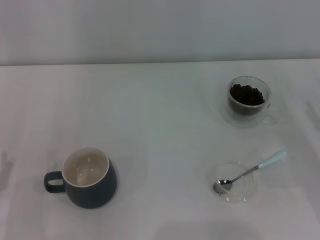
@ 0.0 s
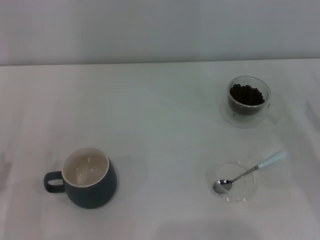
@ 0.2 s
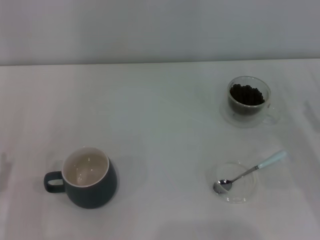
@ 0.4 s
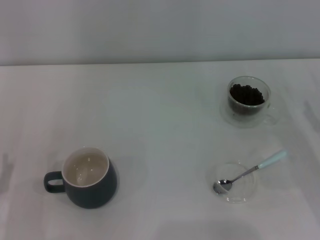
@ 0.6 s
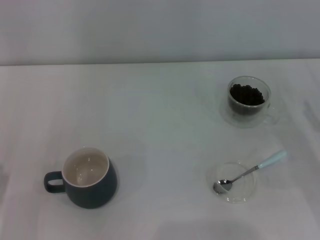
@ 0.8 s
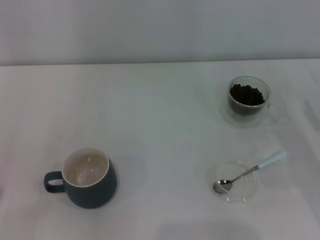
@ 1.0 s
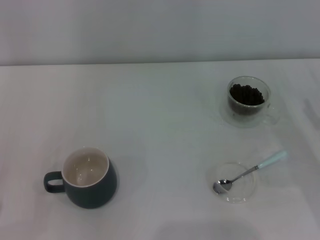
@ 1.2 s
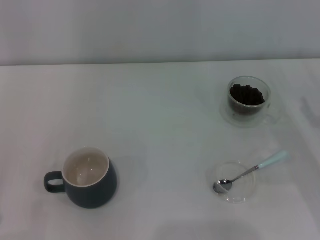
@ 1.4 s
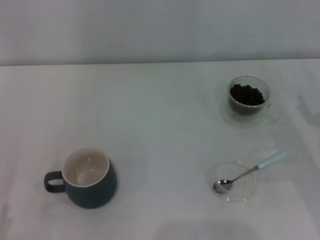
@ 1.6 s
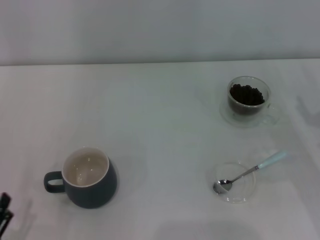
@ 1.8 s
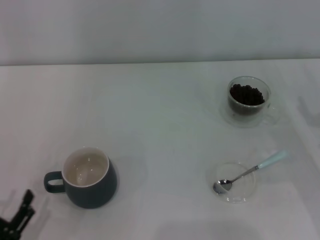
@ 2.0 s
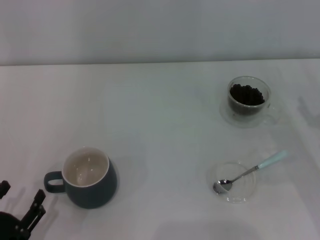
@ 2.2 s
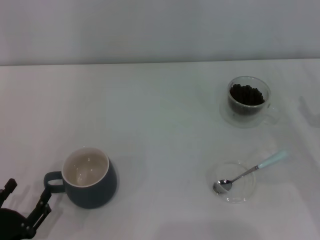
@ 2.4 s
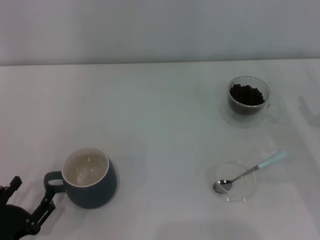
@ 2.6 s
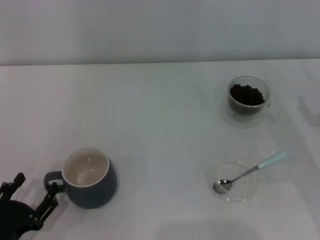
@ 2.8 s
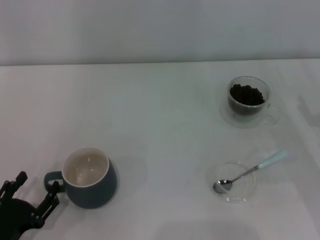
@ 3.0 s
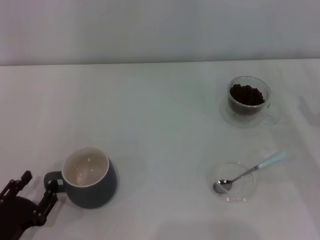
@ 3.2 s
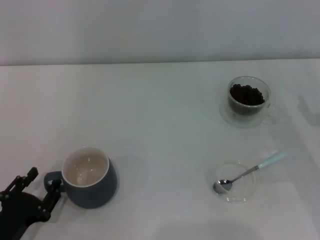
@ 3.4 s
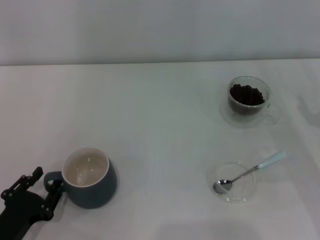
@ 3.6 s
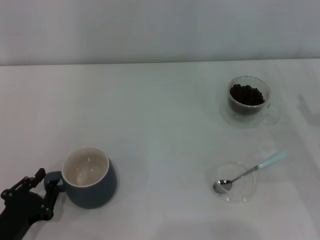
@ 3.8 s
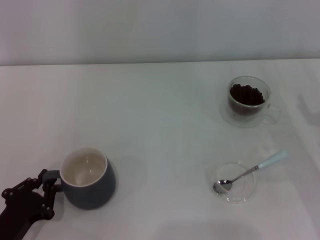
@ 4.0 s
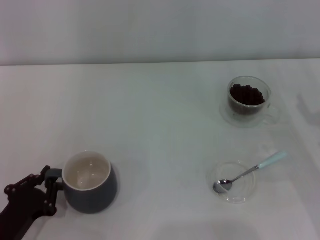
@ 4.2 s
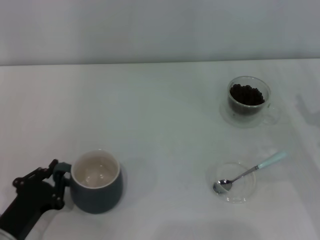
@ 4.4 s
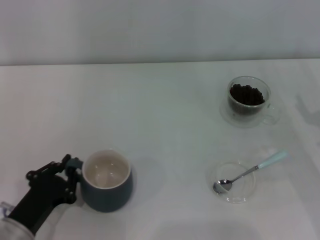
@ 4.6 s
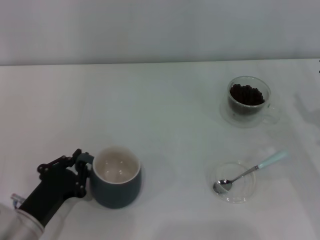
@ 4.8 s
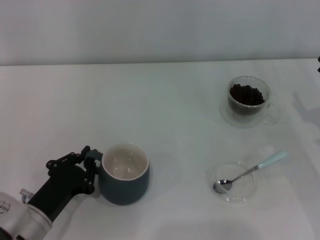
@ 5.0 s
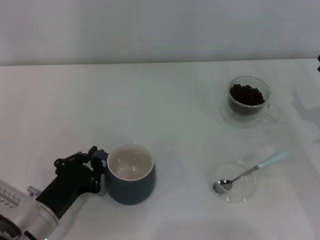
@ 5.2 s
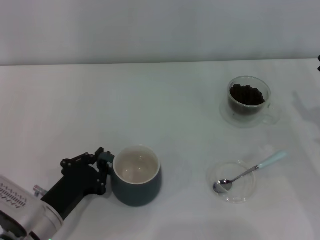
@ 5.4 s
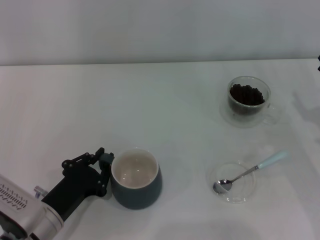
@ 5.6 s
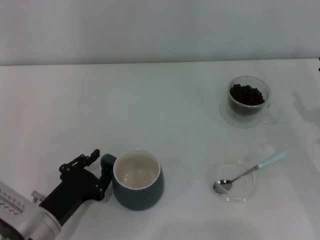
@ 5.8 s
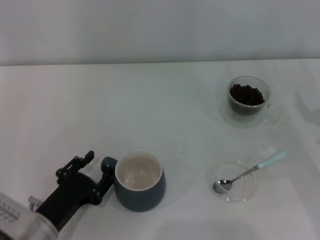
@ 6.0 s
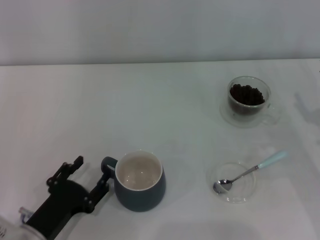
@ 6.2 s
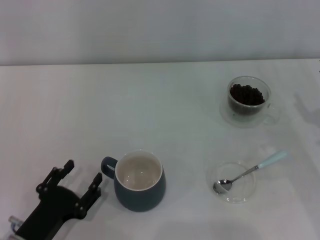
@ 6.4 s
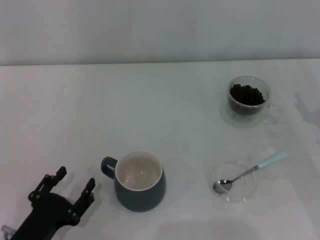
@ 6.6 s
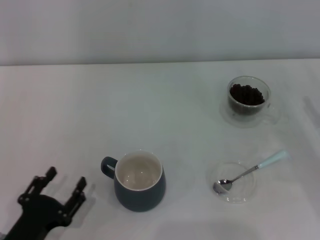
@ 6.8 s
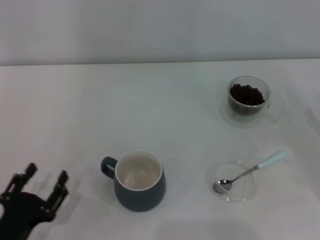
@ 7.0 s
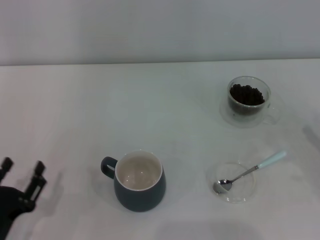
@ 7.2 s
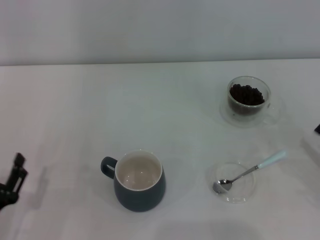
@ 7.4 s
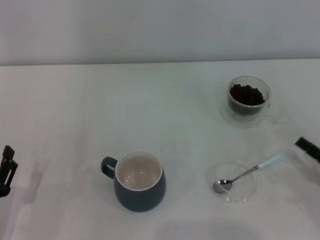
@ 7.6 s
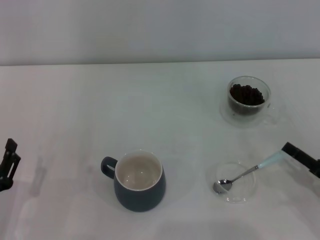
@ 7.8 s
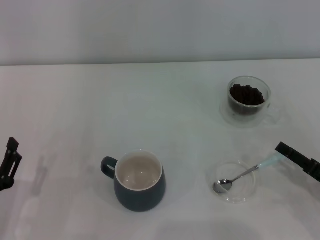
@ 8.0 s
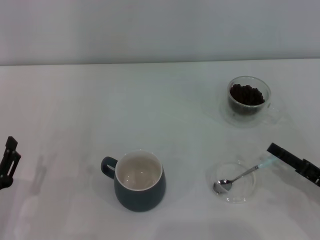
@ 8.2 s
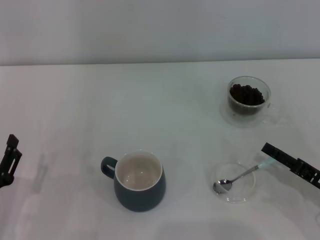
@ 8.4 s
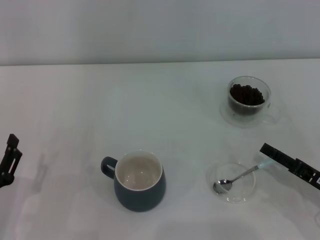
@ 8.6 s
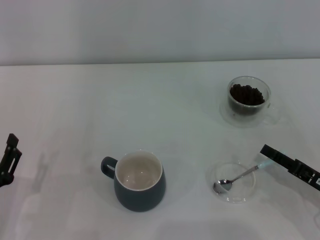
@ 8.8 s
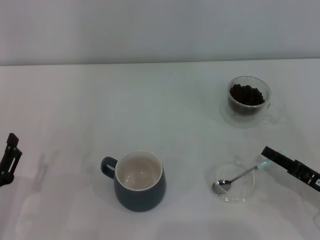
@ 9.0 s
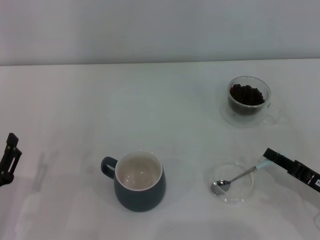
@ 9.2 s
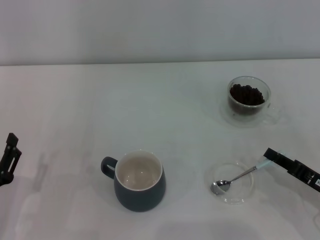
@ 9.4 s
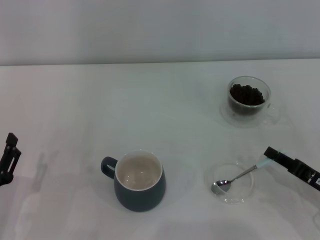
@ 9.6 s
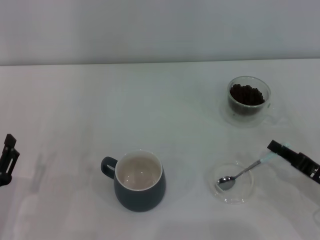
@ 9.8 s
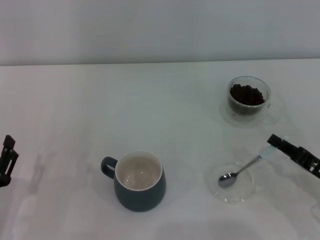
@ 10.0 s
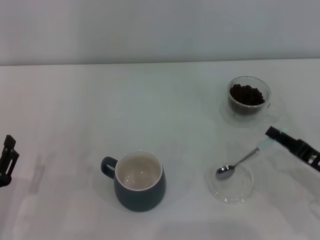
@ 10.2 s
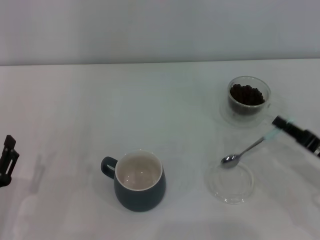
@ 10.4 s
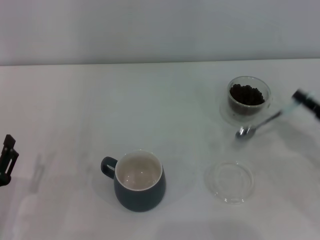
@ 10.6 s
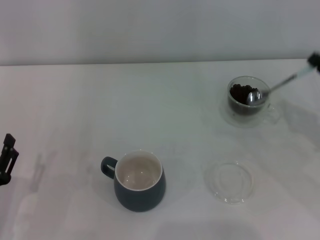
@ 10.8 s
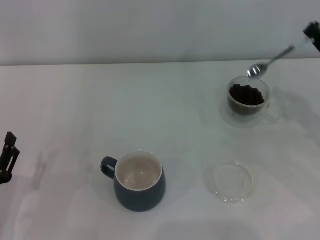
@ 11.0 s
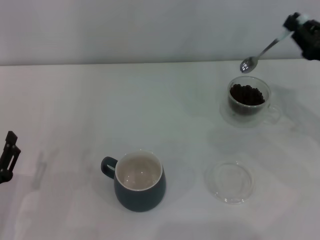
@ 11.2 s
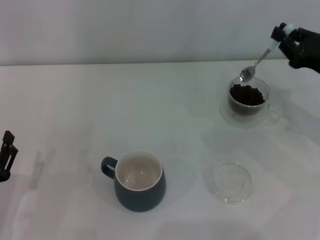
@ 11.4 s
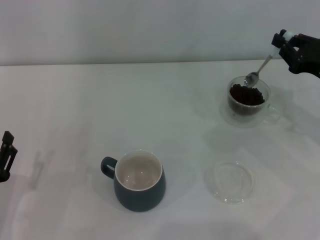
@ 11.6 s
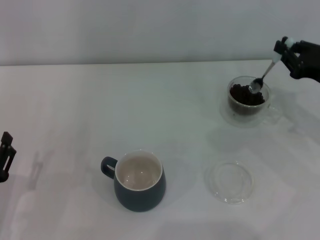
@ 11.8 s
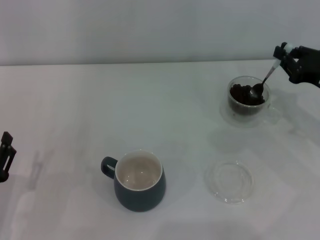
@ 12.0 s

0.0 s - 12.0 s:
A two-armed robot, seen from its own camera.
Task of the whole recording: Use a blue spoon to take out the coffee beans from the glass and pour them into the gray cup.
Step, 0.0 s - 6.4 s: Move the cup to the center of view with the left gripper.
Step, 6.6 s - 10.4 s: Pick up the spoon with the right gripper.
1.6 s - 3.0 s: The left gripper moves forward, roughly 5 cm.
3.0 s - 4.4 s: The left gripper closes.
4.4 s - 6.0 s: The left gripper shifts by approximately 5 cm, and opens.
6.0 s - 7.6 s: The right gripper moves backward, about 10 cm. The left gripper heads to the left, covering roughly 5 cm, and opens.
7.6 s - 9.0 s: The grippers make only small movements.
9.0 s - 10.4 s: The right gripper closes up.
10.4 s - 12.0 s: The right gripper moves forward and upward, some 10 cm.

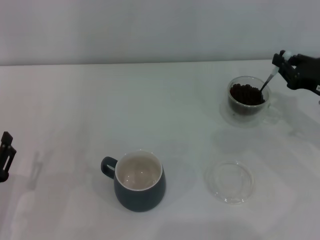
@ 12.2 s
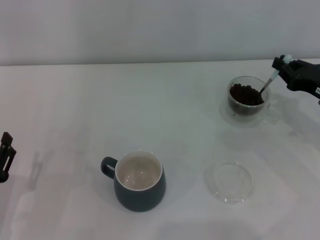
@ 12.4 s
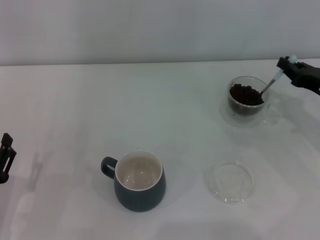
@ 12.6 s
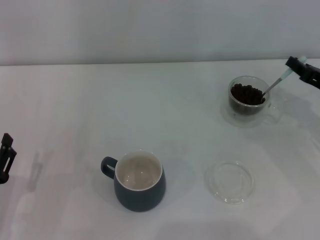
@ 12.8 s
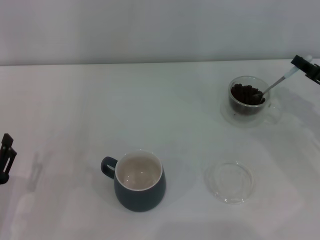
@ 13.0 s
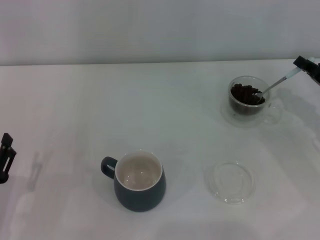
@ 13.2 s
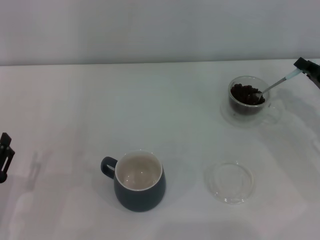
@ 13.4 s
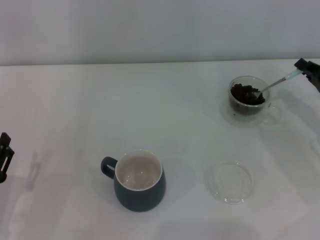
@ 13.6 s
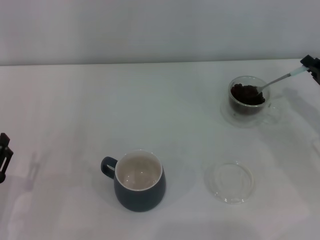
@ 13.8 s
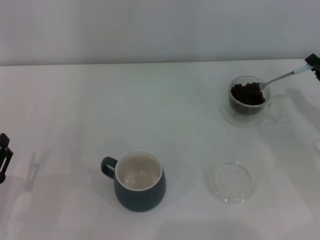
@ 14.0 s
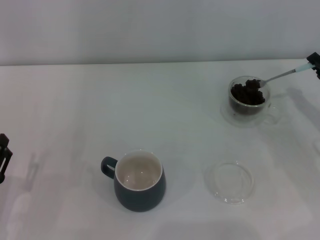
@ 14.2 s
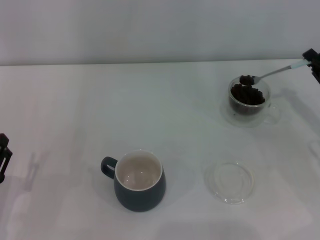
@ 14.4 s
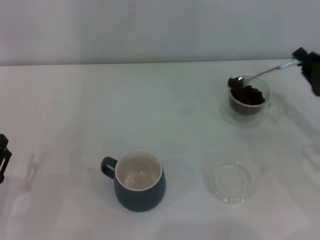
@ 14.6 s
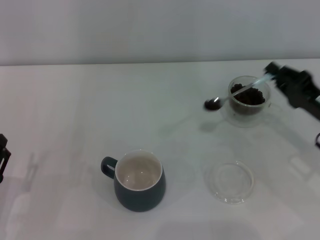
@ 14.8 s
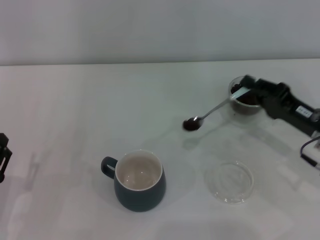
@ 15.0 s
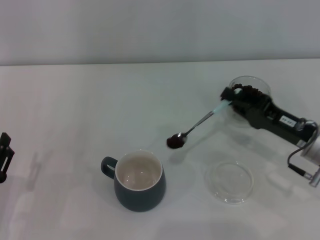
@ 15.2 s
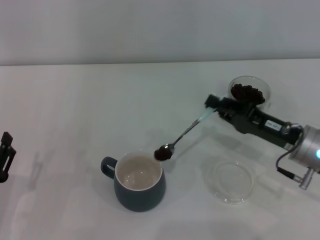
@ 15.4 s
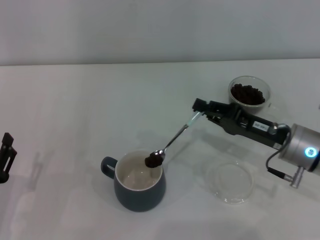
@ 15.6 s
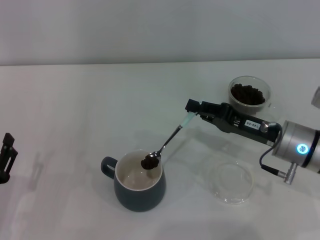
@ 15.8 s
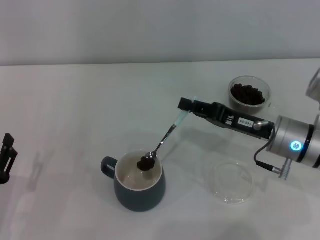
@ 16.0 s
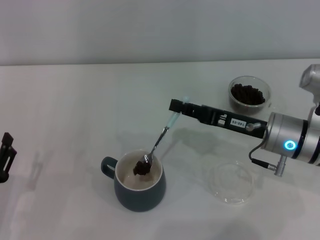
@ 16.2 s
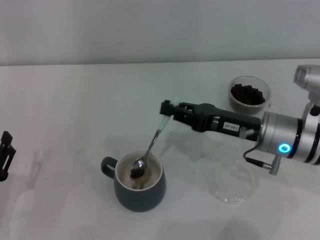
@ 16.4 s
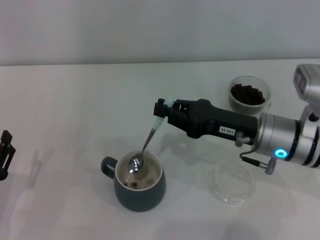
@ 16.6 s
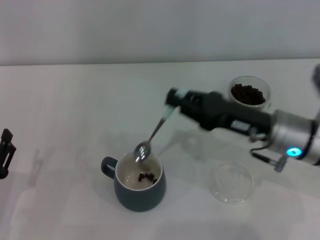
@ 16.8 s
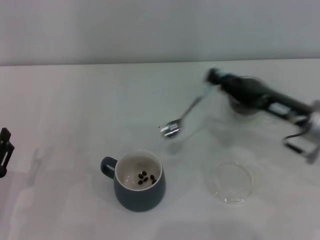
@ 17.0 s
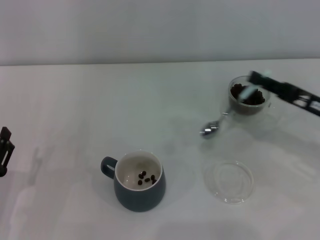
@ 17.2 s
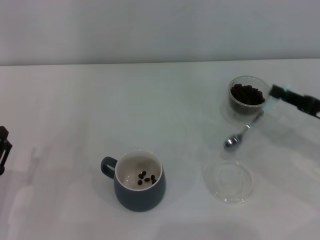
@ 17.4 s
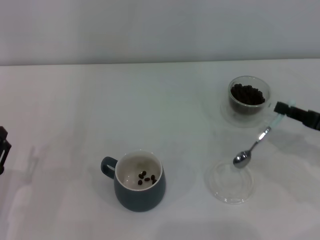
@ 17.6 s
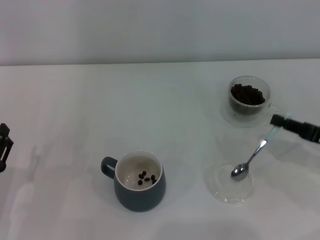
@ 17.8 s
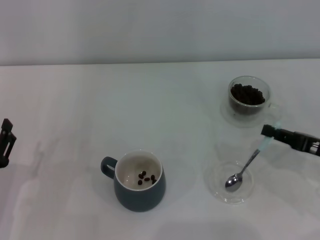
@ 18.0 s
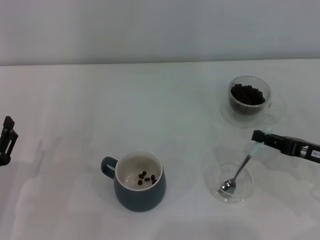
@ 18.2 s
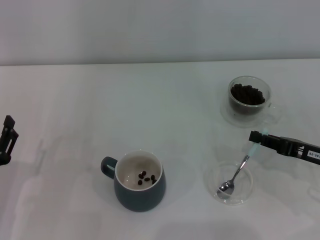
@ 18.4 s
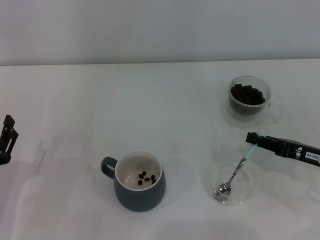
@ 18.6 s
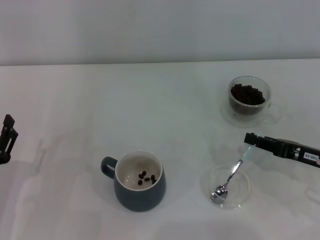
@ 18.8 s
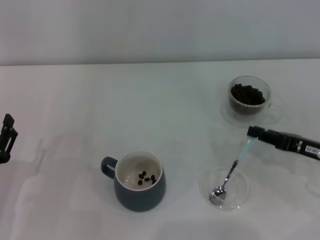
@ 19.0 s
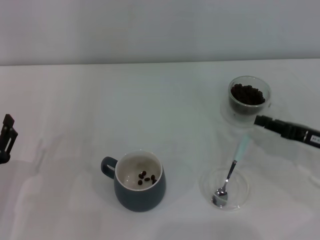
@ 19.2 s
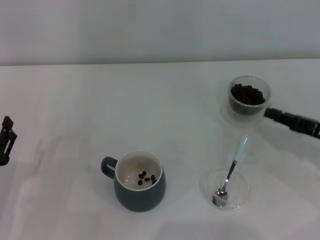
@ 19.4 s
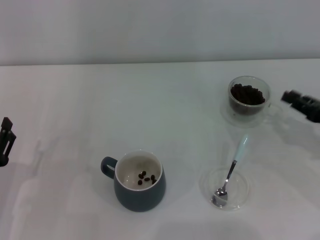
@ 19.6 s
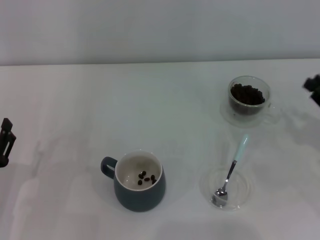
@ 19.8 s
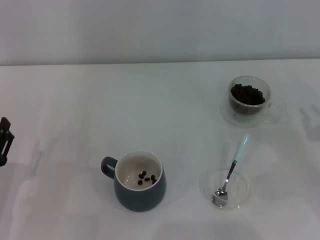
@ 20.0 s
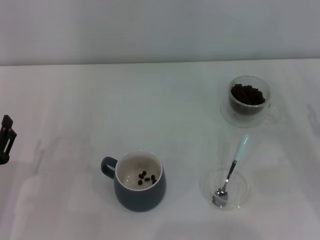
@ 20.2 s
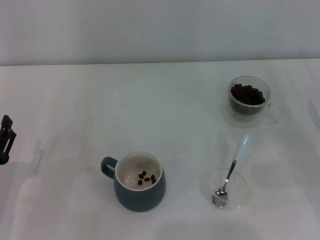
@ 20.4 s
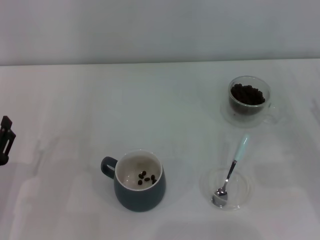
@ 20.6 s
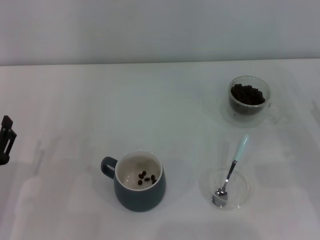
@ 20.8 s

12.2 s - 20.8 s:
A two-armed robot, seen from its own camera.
Task of the whole recording: Use a blue spoon to take out the coffee beans from the glass and pour them into the gray cup.
Step, 12.2 s - 16.8 s: Scoop a spoonful of beans into the cup with the right gripper.
Step, 17.0 s - 19.2 s: Place the spoon back in its original place with the right gripper.
13.6 s - 15.0 s: The right gripper shifts about 5 cm to the left.
15.0 s - 16.6 s: The right gripper goes roughly 10 cm to the left.
16.6 s - 18.0 s: The right gripper is displaced to the right by approximately 15 cm.
18.0 s - 19.4 s: The grippers stay close to where they were, moving slightly.
19.4 s - 20.8 s: The right gripper opens.
